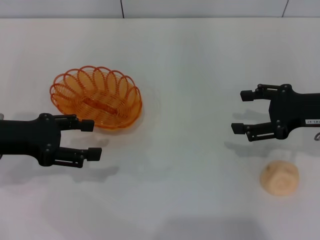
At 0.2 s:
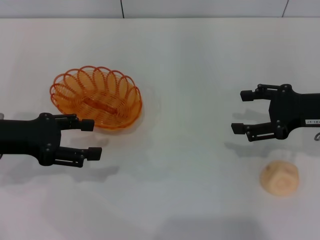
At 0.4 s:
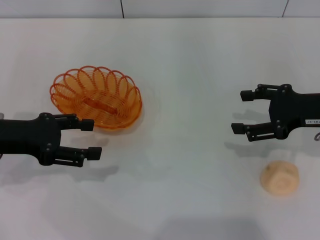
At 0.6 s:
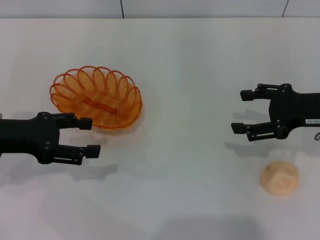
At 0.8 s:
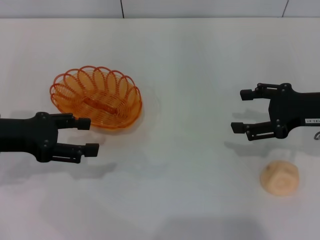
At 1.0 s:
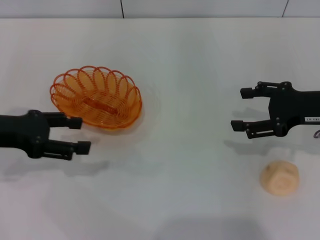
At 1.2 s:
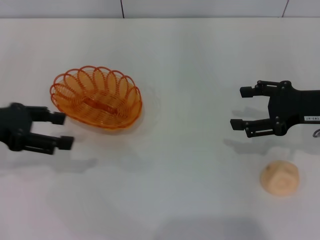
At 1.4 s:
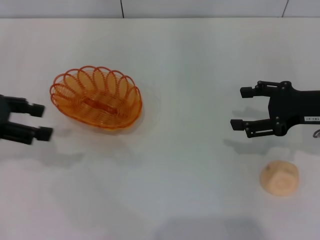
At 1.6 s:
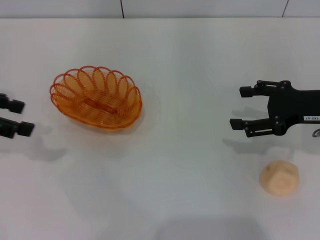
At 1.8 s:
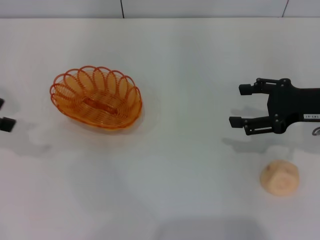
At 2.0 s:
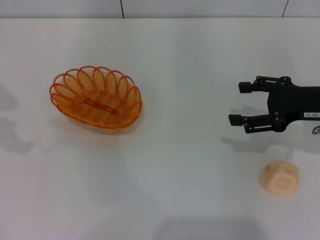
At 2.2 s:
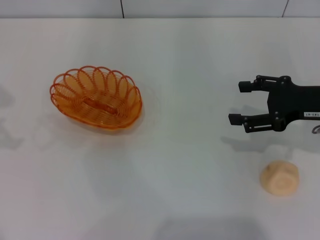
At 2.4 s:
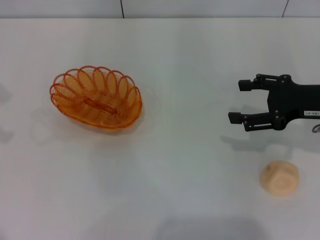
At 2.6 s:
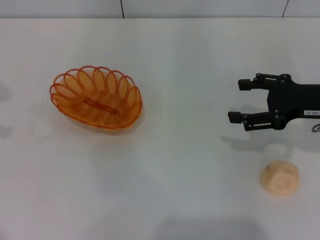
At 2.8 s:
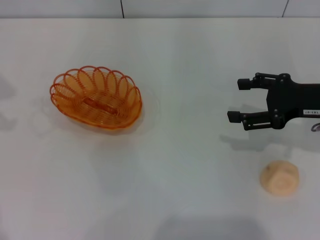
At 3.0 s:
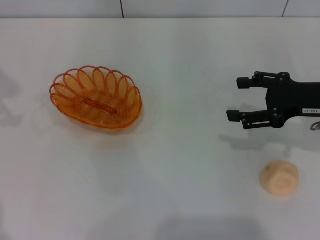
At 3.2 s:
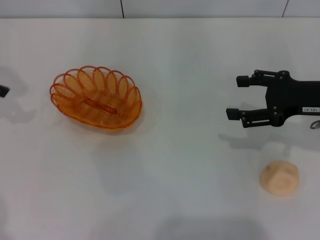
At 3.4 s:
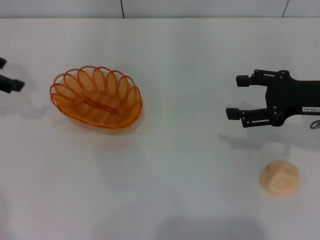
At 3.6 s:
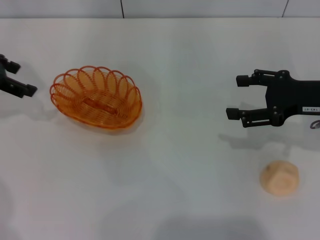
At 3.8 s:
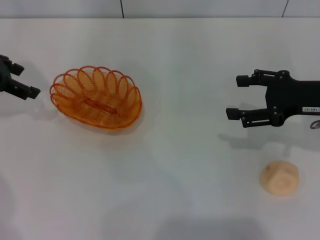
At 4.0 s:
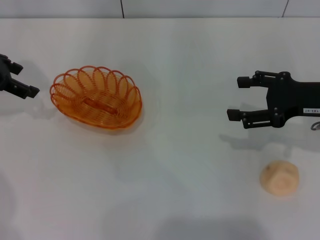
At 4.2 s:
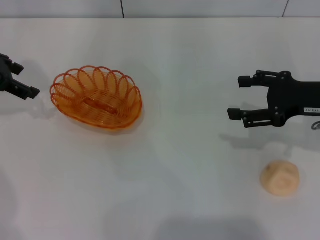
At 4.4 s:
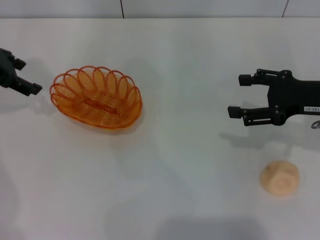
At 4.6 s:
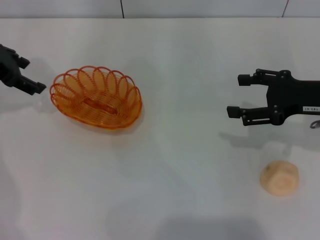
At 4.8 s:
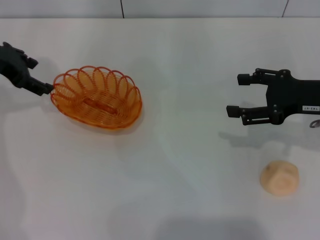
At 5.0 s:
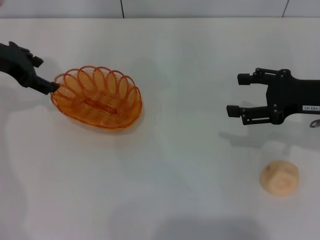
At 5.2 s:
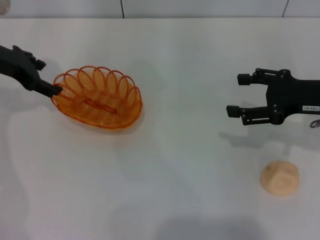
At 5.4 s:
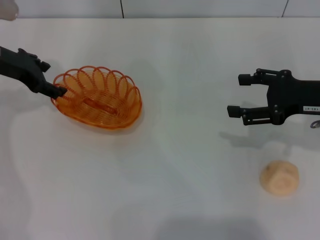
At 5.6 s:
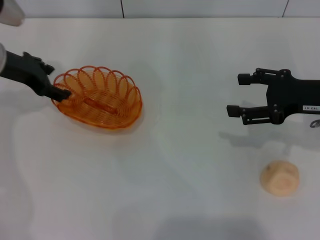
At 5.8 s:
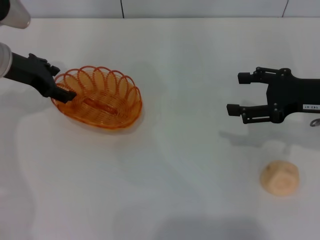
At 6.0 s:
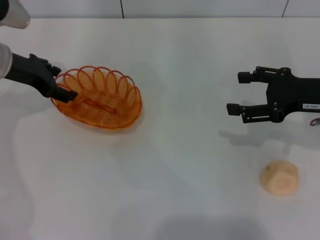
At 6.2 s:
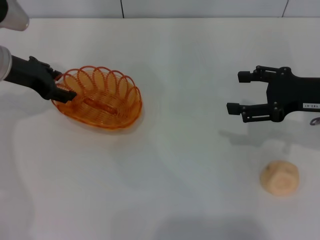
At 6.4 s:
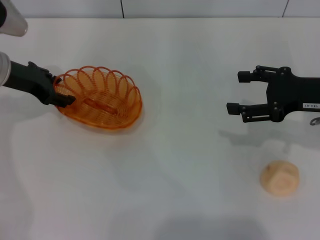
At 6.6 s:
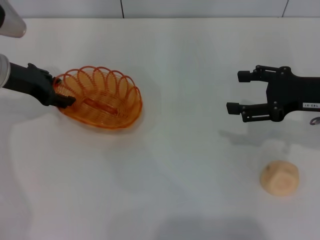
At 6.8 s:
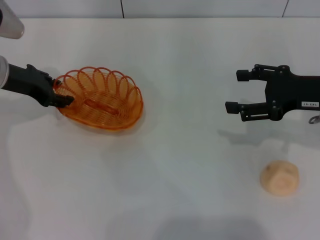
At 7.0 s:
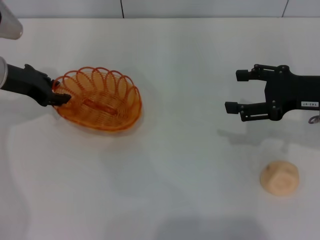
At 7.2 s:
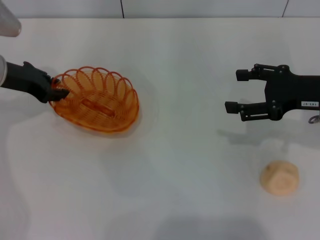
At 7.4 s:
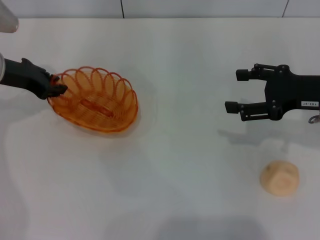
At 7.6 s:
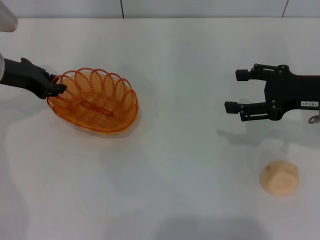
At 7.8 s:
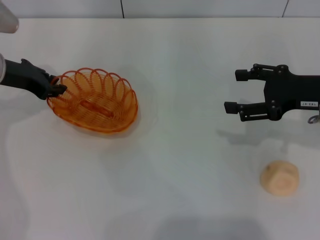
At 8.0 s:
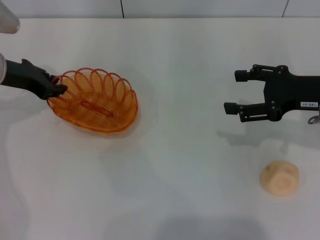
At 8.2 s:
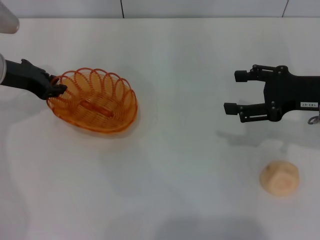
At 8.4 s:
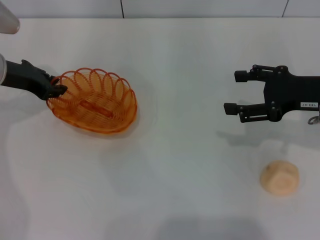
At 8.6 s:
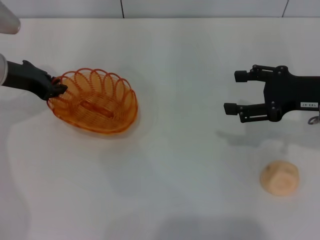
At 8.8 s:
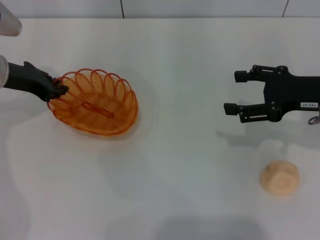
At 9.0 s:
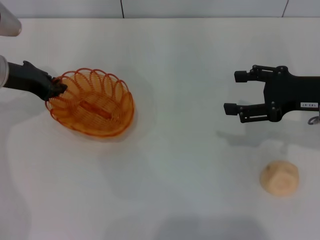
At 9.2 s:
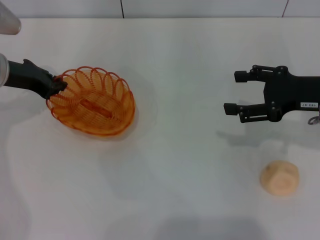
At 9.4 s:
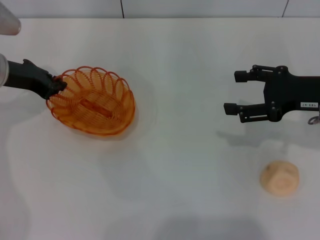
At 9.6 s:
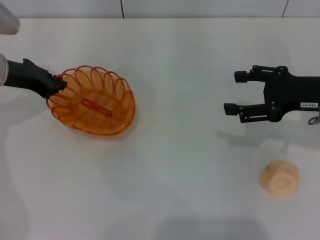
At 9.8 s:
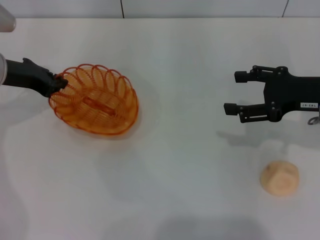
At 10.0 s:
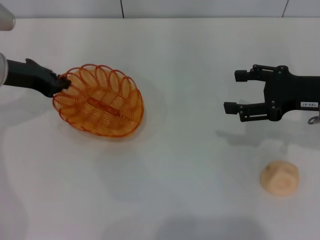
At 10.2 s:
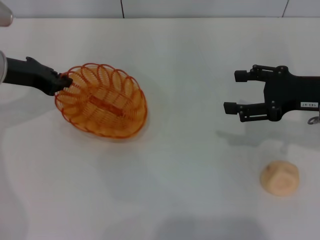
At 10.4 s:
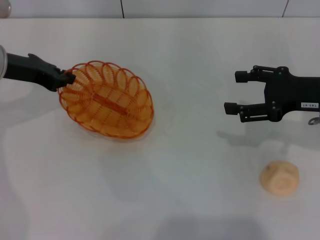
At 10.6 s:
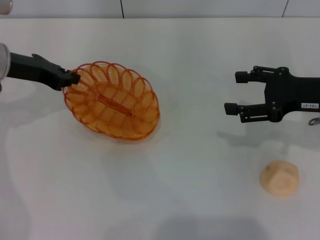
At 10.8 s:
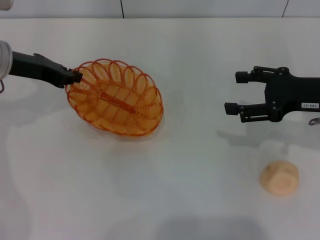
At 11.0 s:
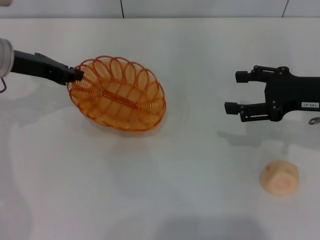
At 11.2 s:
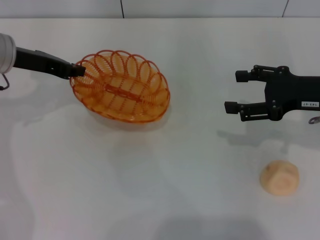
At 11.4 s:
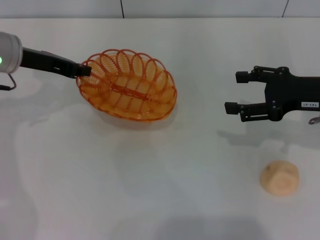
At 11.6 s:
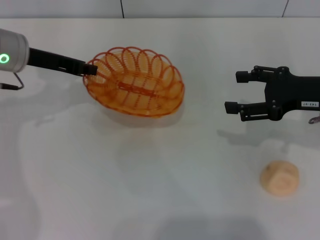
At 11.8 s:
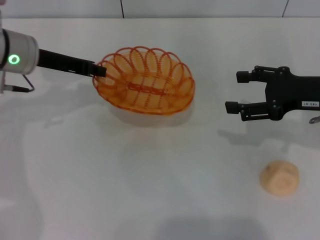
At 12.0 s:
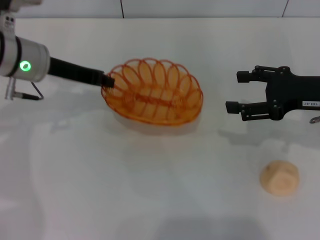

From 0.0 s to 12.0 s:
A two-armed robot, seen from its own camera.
From 0.0 s to 1.6 s: The left gripper shifts roughly 10 cm upward and to the left.
From 1.6 s to 3.0 s: The left gripper changes place by approximately 5 cm.
From 3.0 s to 4.4 s: The left gripper is displaced to the right by some 5 cm.
From 4.4 s to 6.0 s: The left gripper is displaced downward by roughly 5 cm.
From 6.0 s to 7.6 s: The left gripper closes.
From 7.6 s to 9.0 s: Both grippers stay put.
From 9.0 s to 10.4 s: The grippers stay close to where they were, moving slightly.
From 10.4 s to 12.0 s: The left gripper is displaced to the right by about 5 cm.

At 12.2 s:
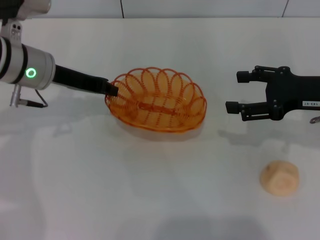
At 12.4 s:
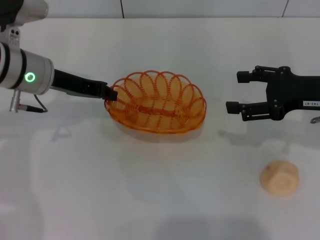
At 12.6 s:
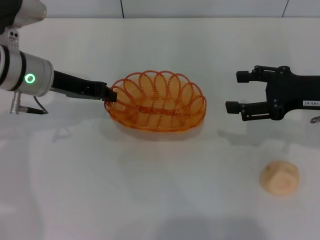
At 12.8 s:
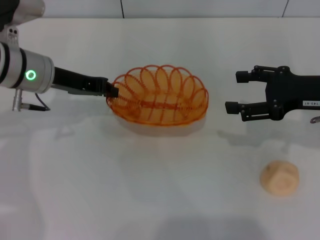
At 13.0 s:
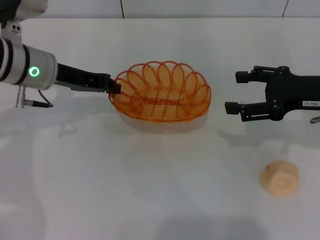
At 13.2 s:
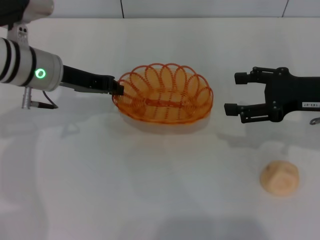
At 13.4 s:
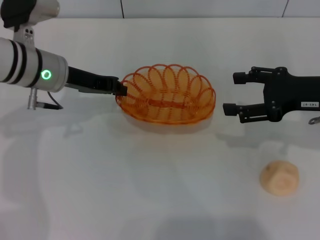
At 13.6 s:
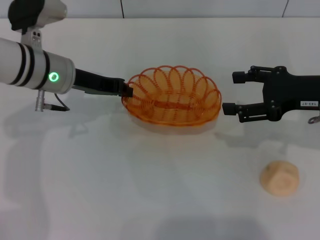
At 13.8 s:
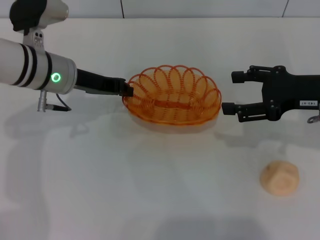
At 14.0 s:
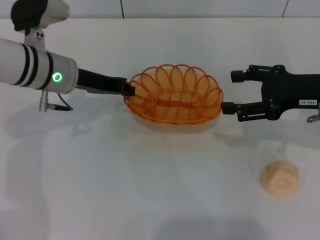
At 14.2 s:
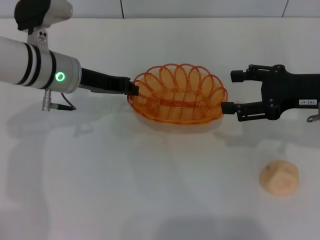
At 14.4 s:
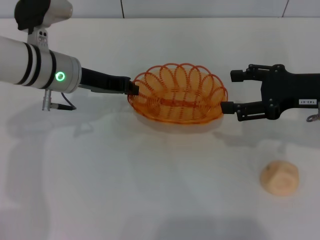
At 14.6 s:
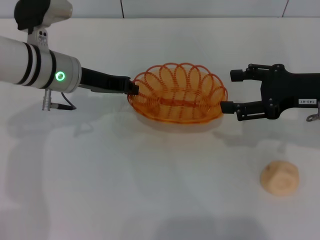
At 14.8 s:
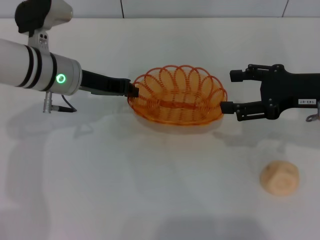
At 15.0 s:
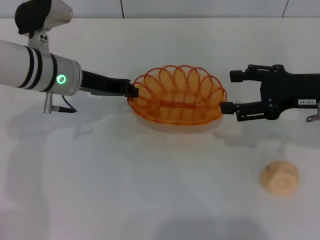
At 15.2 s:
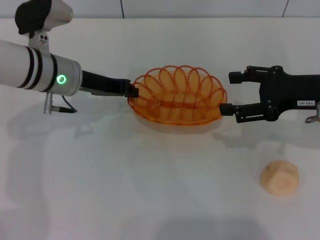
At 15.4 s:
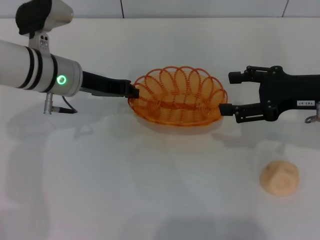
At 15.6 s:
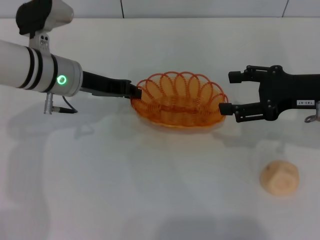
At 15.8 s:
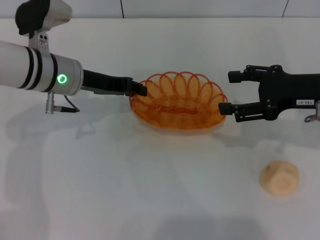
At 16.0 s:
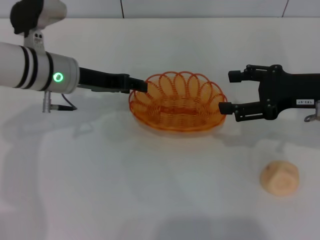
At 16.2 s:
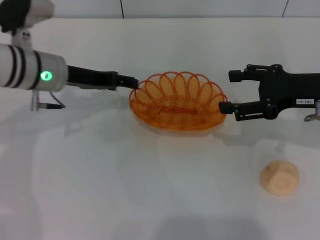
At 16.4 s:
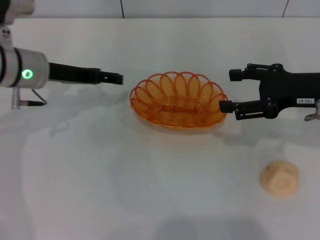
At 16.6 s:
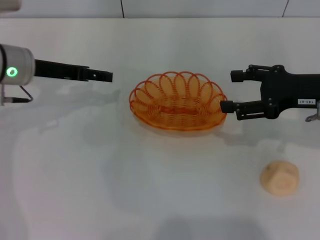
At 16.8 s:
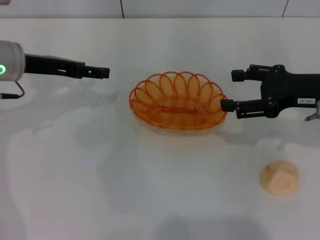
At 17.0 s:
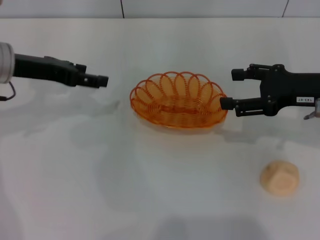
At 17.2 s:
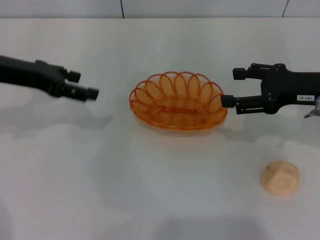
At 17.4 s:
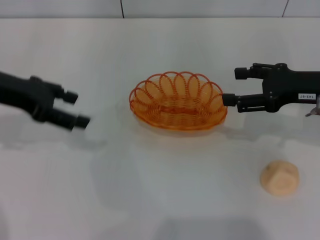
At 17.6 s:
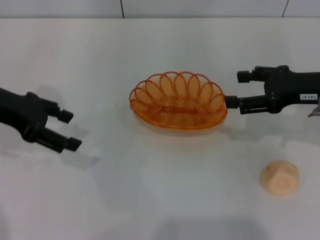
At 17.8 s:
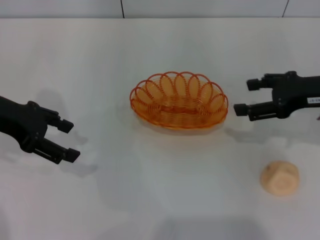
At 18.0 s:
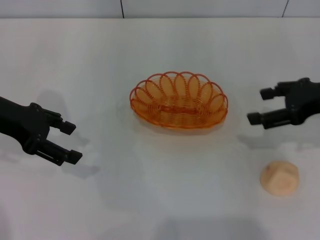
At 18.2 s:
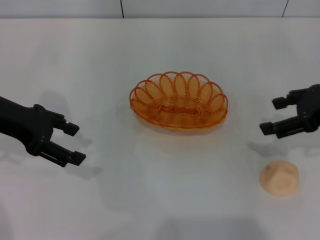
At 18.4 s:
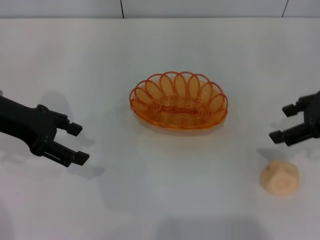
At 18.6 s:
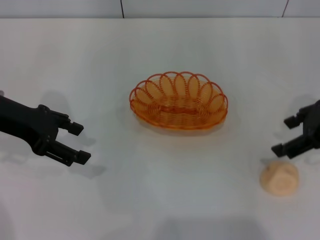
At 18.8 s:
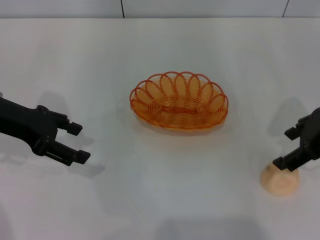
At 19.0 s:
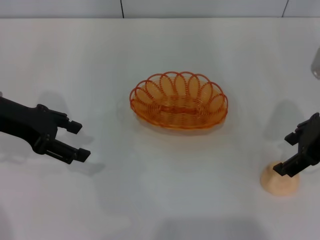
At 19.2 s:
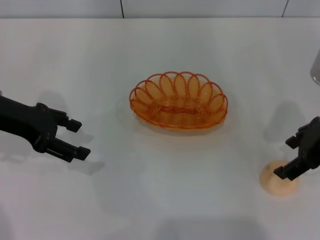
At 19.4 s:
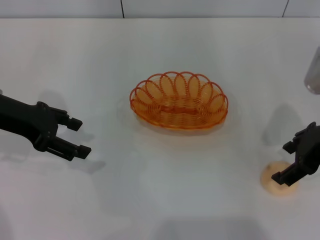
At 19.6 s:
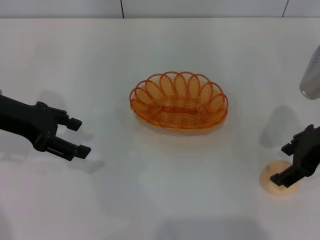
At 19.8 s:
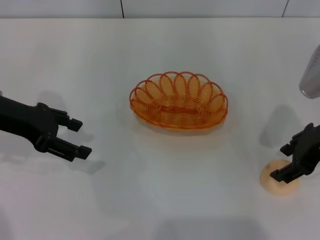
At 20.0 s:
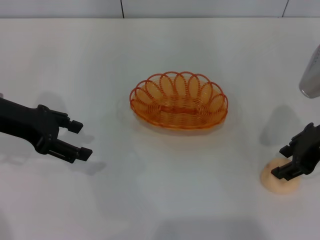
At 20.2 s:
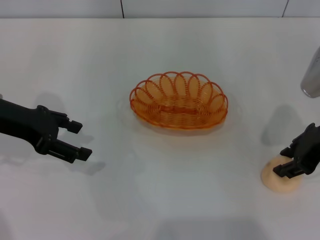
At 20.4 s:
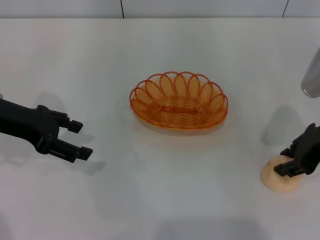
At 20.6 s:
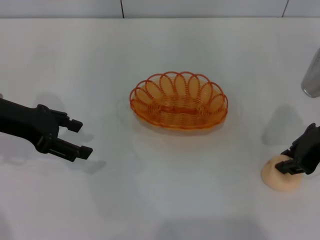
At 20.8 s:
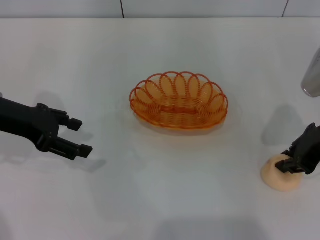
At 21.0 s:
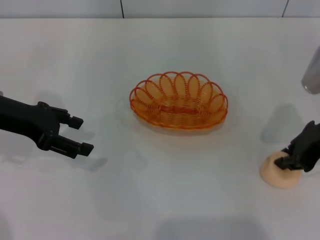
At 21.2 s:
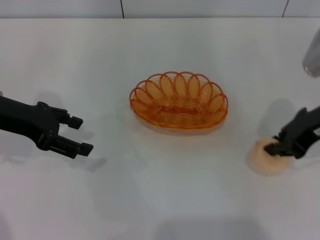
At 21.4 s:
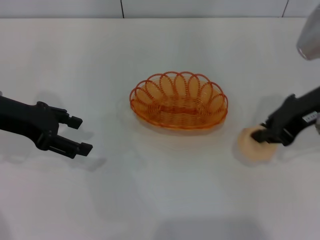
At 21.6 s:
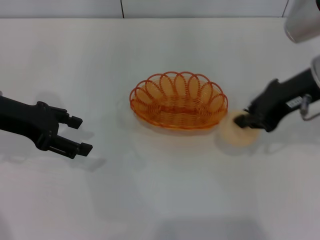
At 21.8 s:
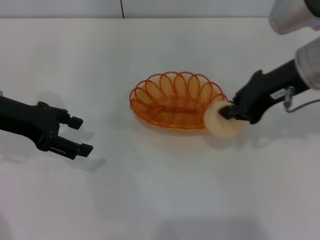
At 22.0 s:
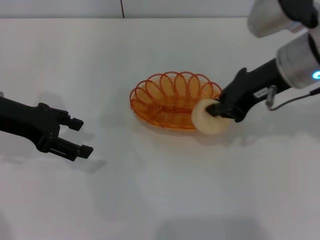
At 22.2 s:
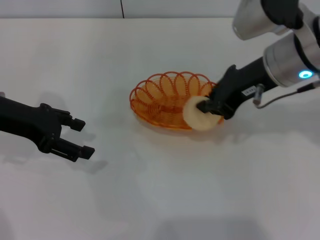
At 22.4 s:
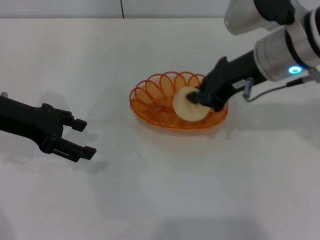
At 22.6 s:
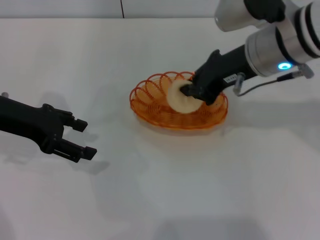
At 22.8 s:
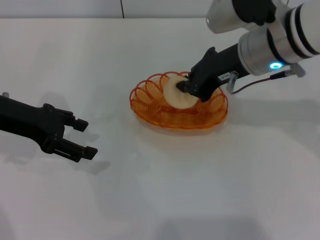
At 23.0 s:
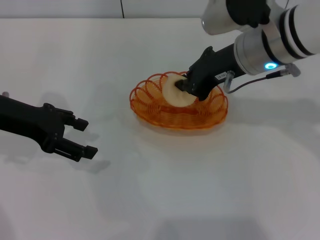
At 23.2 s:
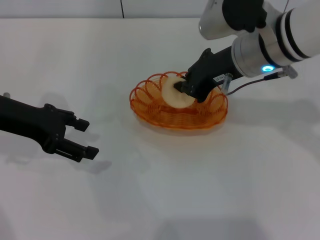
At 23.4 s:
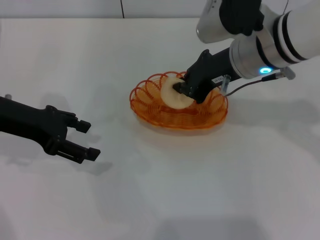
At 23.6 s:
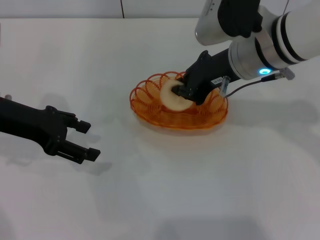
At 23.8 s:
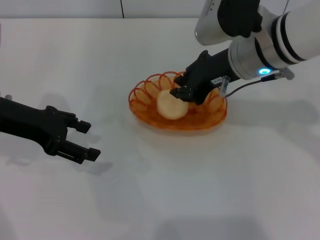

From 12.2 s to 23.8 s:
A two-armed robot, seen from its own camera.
Step, from 12.8 s to 16.4 s: Place the basket in the center of view with the left gripper.
Step, from 16.8 s to 21.4 s: Pick up the egg yolk pastry with the right gripper.
From 12.2 s to 13.6 s: The grippers stay close to where they were, moving slightly.
From 13.6 s to 15.0 s: The two grippers keep their place.
From 15.0 s to 16.6 s: The left gripper goes about 5 cm to the left, and opens.
From 16.6 s to 18.0 s: The left gripper shifts roughly 5 cm backward.
From 19.4 s to 21.0 s: The right gripper closes.
From 21.0 s to 22.4 s: The right gripper moves to the left, roughly 10 cm.
From 22.4 s to 23.8 s: The grippers stay close to where they were, moving slightly.
